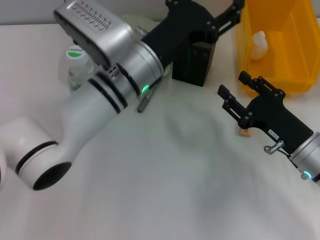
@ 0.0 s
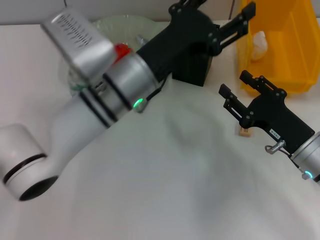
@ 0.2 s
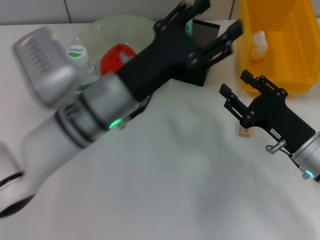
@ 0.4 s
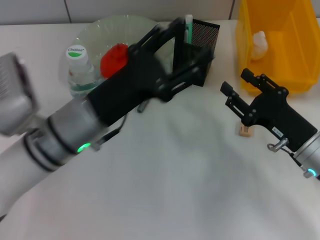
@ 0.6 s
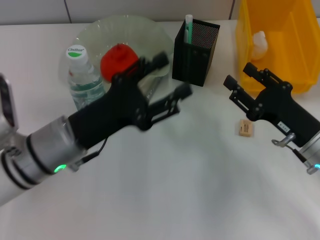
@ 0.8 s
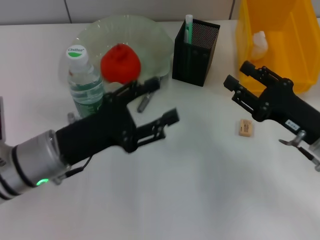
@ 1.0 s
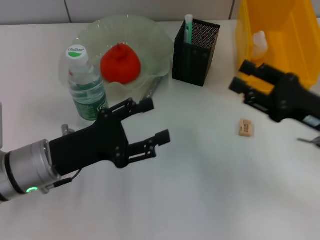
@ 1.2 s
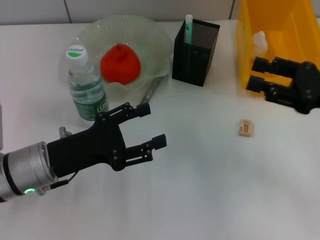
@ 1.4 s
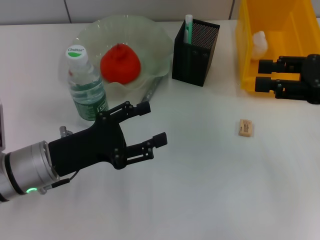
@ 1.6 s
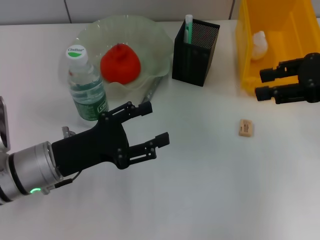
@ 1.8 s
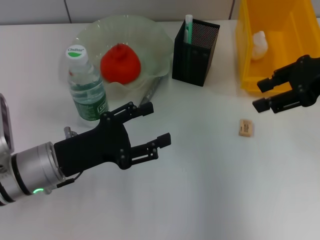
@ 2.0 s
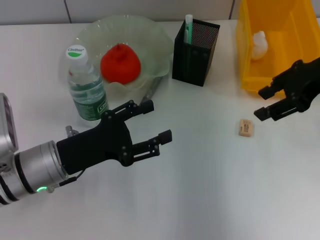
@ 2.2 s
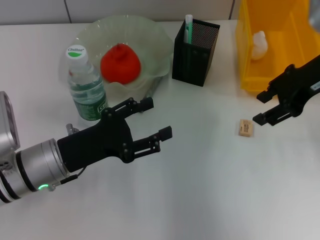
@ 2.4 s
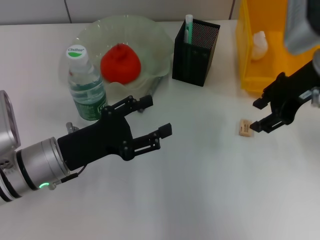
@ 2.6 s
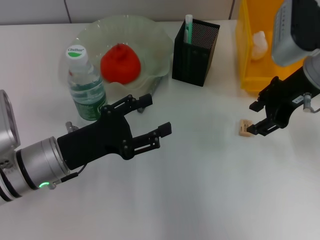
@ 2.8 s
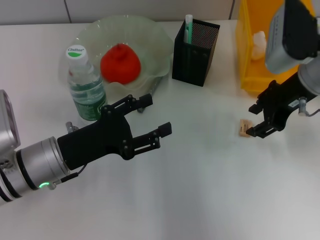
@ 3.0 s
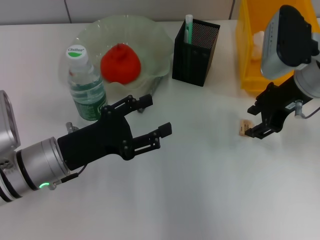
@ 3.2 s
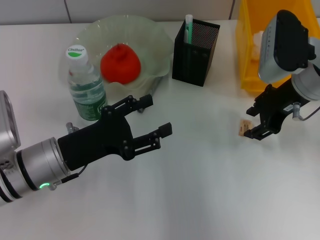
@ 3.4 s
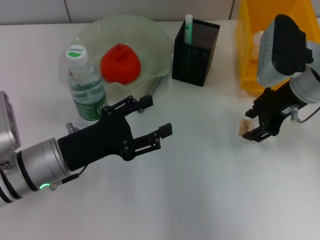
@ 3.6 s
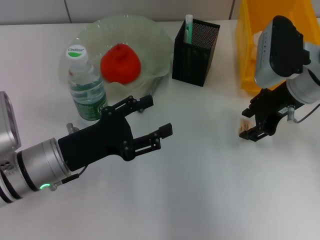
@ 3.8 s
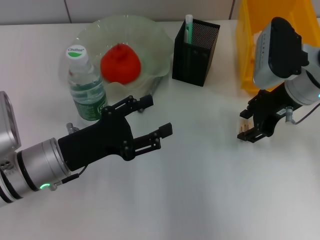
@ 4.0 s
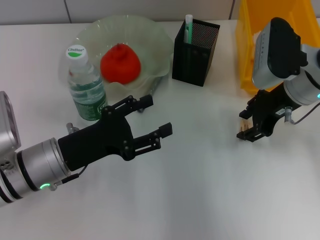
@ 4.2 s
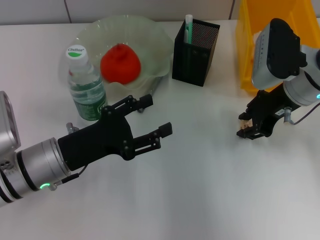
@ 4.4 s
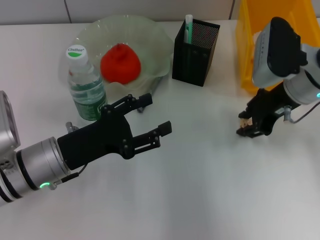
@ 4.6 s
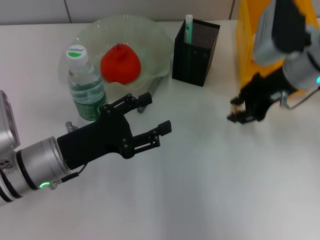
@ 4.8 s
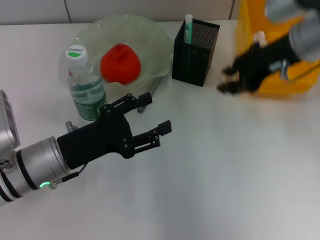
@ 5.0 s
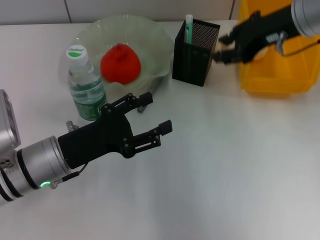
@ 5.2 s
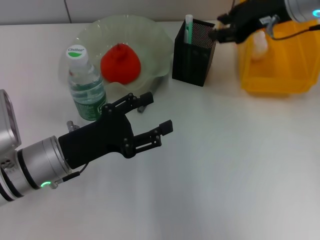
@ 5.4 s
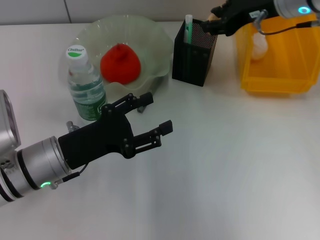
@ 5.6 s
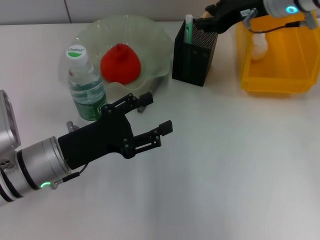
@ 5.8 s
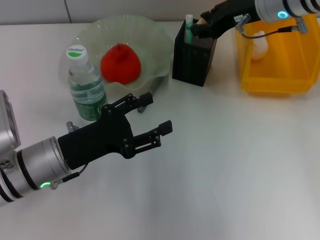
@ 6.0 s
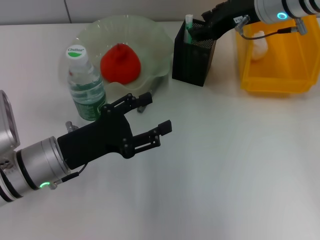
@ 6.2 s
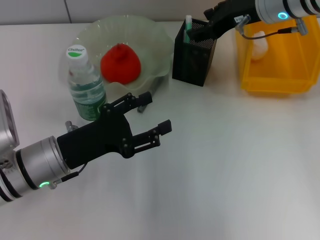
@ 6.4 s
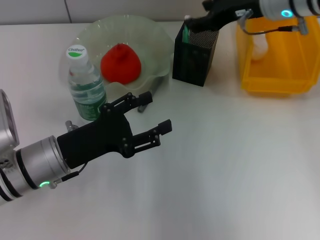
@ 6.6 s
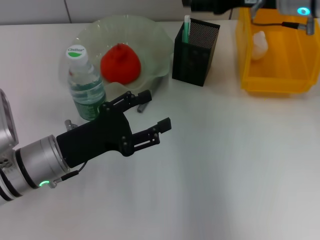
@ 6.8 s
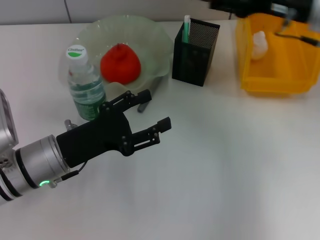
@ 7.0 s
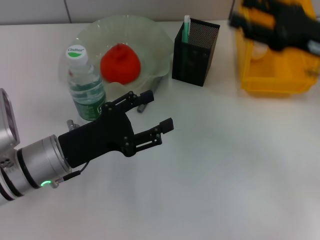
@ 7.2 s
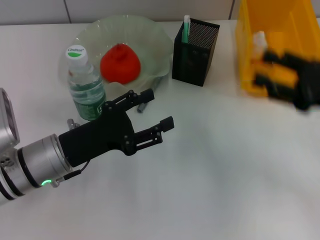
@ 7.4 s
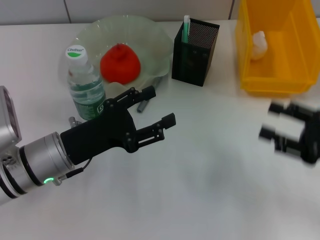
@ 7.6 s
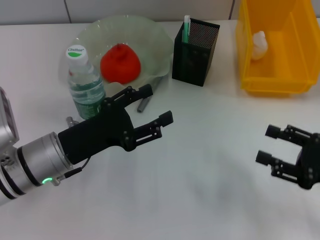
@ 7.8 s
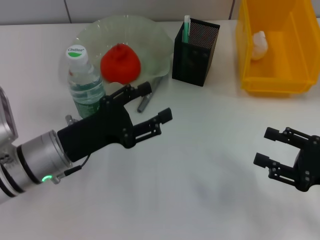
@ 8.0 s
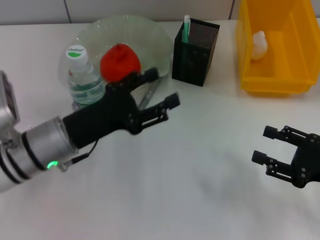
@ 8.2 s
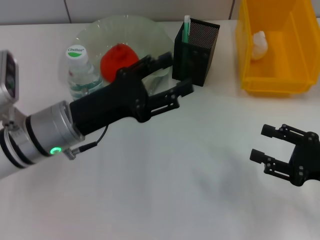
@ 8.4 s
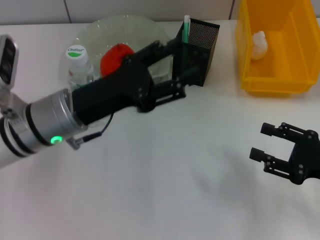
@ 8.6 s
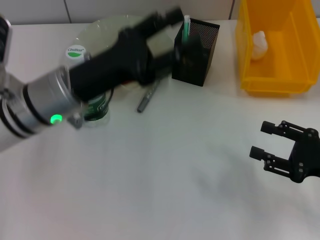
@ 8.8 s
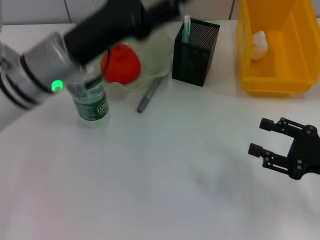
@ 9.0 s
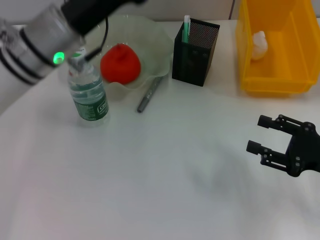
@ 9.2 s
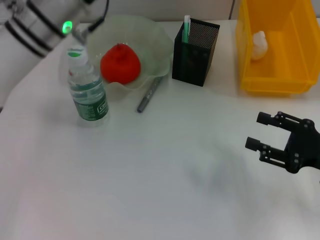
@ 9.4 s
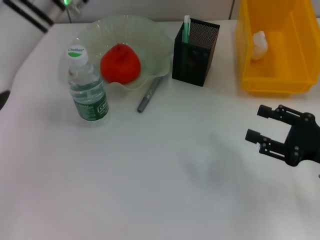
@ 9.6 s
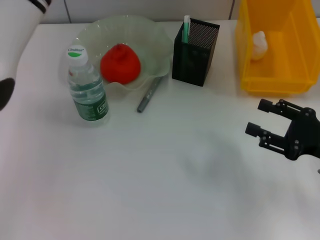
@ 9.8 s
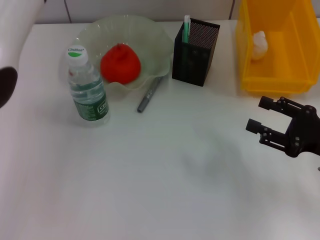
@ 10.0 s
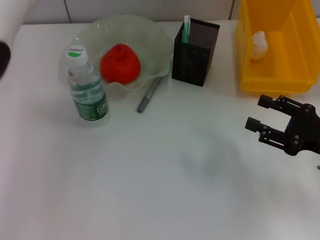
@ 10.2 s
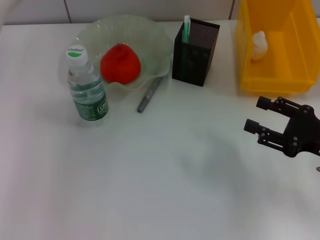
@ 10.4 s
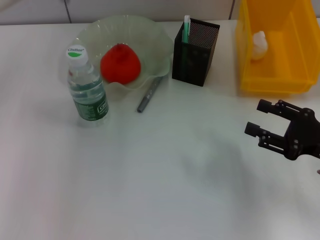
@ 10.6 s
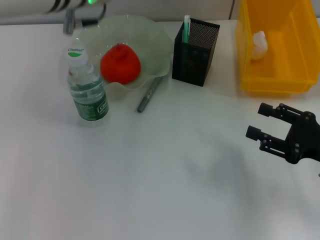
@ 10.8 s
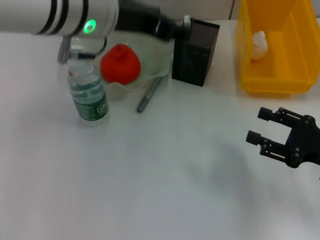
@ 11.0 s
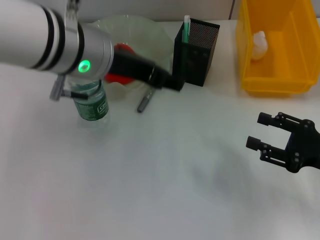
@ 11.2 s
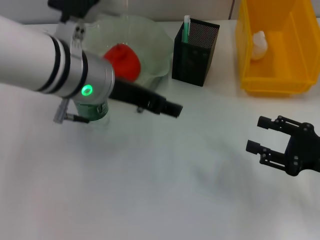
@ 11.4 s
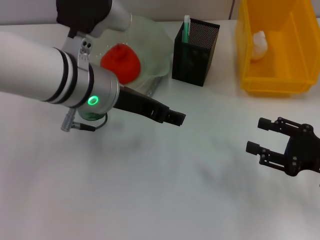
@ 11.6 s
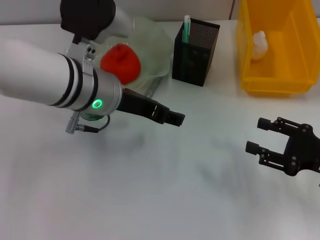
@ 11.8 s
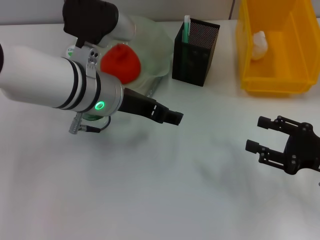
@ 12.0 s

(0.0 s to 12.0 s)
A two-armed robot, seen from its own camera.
Step, 0.0 s - 4.2 s: Grab the eraser with the right hand.
Step, 4.4 s - 6.2 s: Put the eraser into the pen holder with the right hand.
0.0 s - 1.6 s: The left gripper is displaced to the left, backward and downward by some 20 cm. The right gripper shifts roughly 15 cm upward and to the right.
1.6 s - 3.0 s: The right gripper shifts about 10 cm to the left and forward.
3.0 s - 4.4 s: The grippers make only small movements.
4.4 s - 6.0 s: The right gripper is displaced upward and forward by roughly 10 cm.
6.0 s - 7.6 s: The right gripper heads backward, to the right and downward, covering about 30 cm, and opens up.
7.6 s - 9.0 s: The left gripper heads upward and forward, covering about 10 cm.
9.0 s - 10.4 s: The left gripper moves upward and forward, about 15 cm.
10.4 s - 12.0 s: The left gripper shifts roughly 15 cm downward and backward.

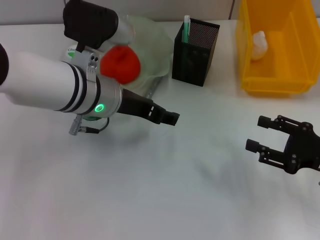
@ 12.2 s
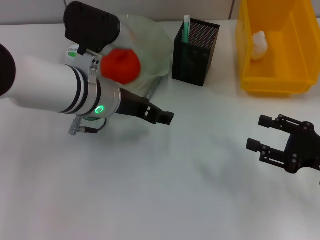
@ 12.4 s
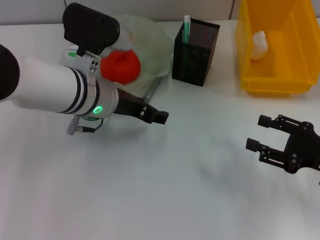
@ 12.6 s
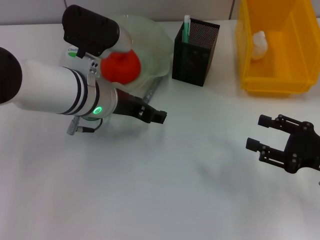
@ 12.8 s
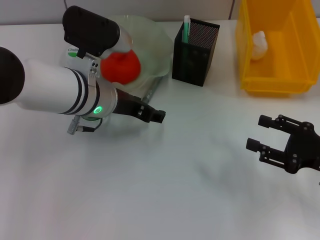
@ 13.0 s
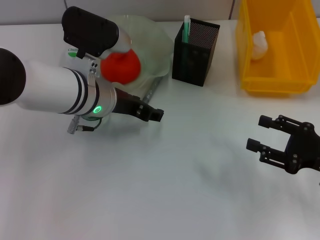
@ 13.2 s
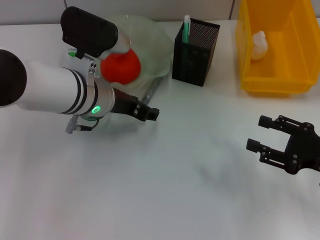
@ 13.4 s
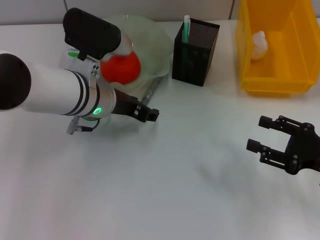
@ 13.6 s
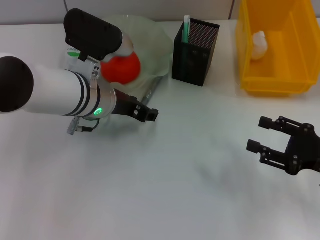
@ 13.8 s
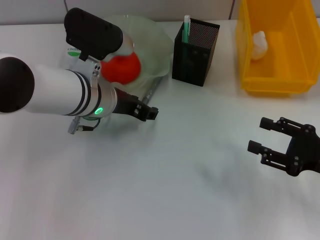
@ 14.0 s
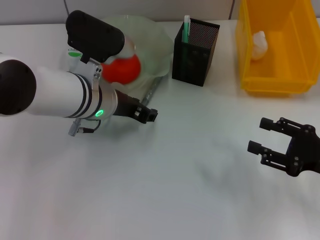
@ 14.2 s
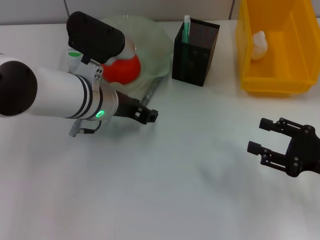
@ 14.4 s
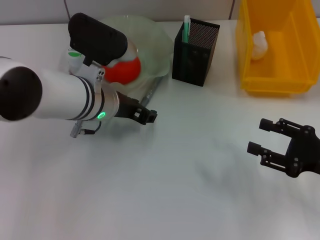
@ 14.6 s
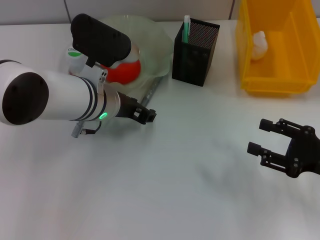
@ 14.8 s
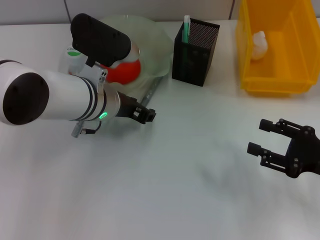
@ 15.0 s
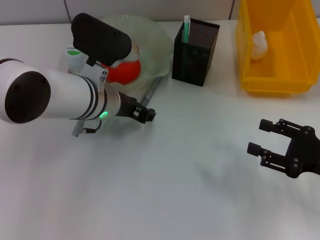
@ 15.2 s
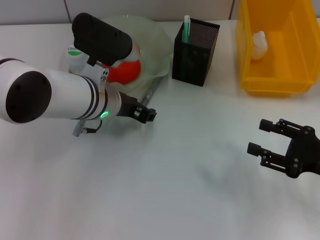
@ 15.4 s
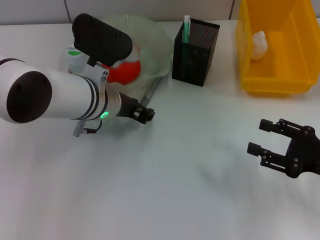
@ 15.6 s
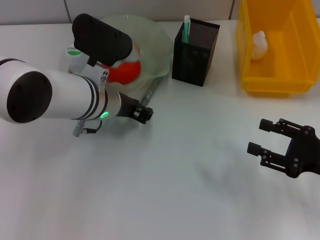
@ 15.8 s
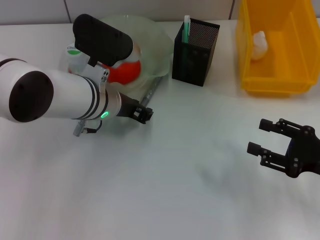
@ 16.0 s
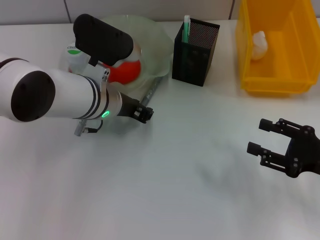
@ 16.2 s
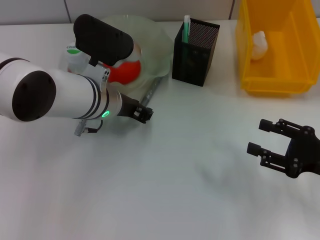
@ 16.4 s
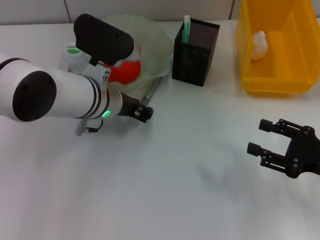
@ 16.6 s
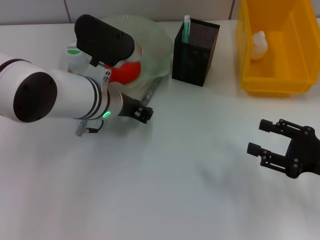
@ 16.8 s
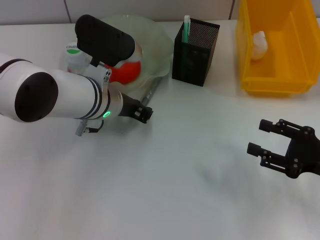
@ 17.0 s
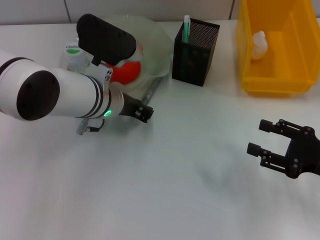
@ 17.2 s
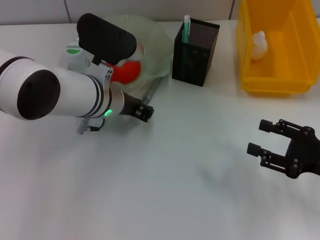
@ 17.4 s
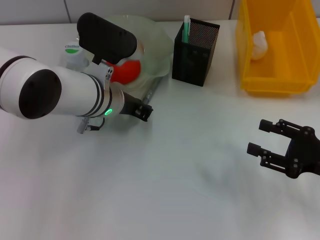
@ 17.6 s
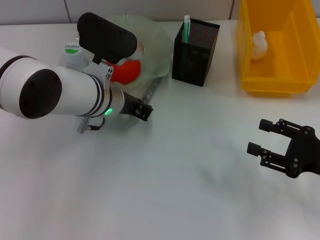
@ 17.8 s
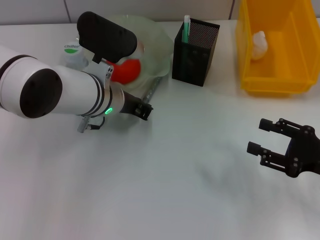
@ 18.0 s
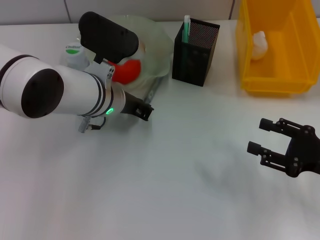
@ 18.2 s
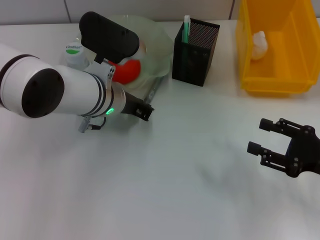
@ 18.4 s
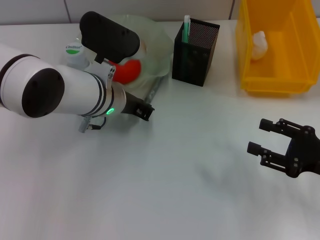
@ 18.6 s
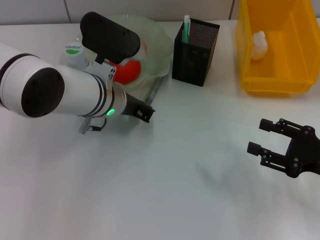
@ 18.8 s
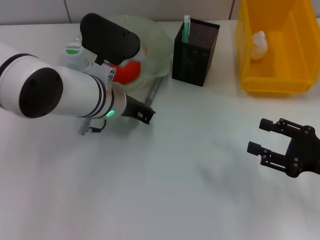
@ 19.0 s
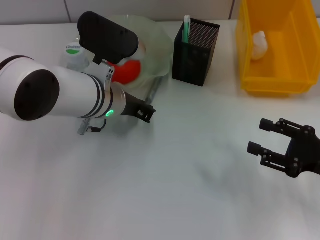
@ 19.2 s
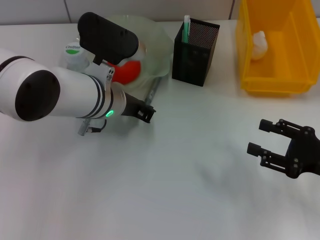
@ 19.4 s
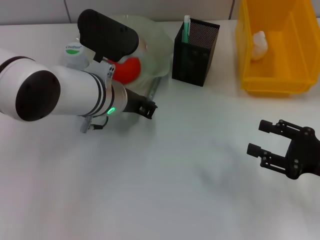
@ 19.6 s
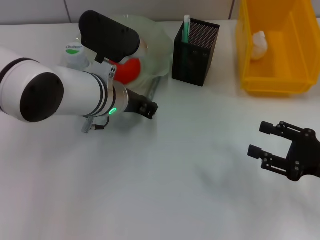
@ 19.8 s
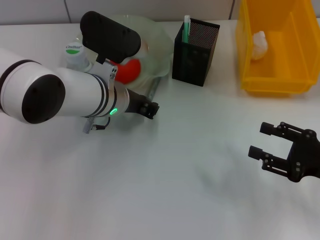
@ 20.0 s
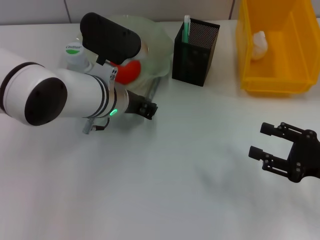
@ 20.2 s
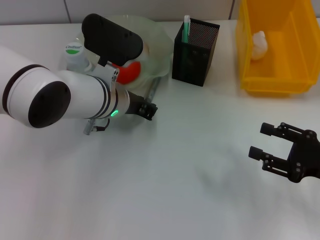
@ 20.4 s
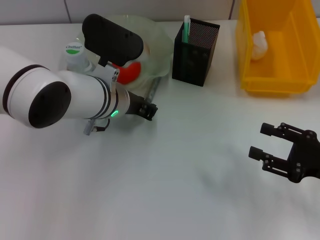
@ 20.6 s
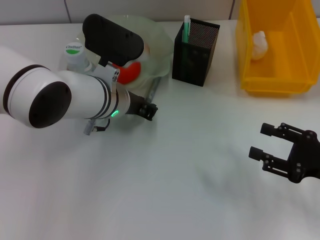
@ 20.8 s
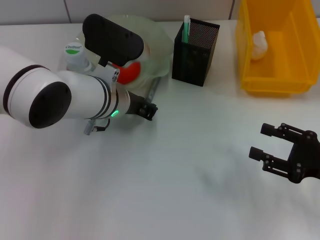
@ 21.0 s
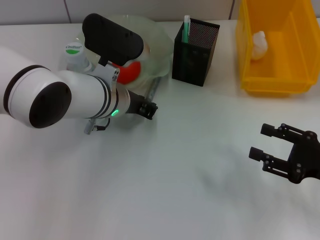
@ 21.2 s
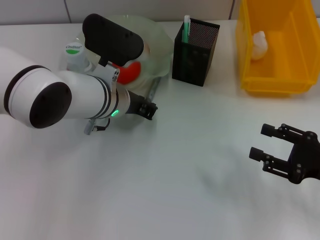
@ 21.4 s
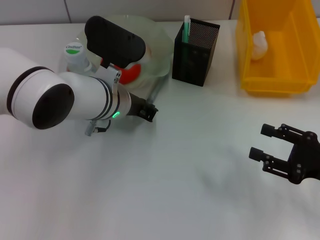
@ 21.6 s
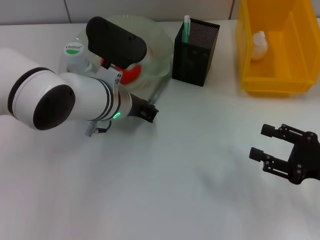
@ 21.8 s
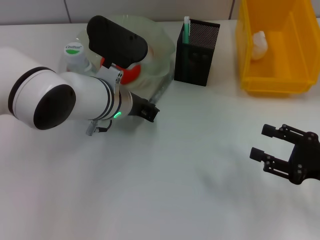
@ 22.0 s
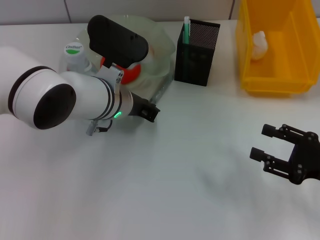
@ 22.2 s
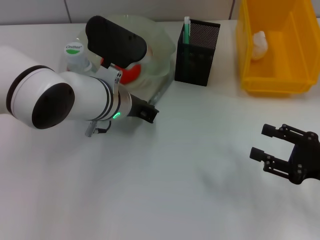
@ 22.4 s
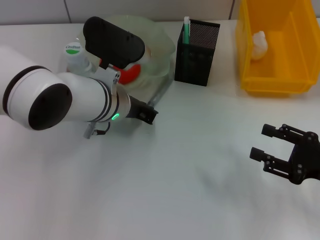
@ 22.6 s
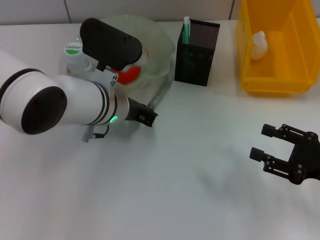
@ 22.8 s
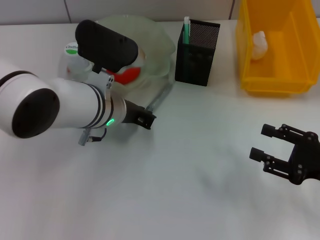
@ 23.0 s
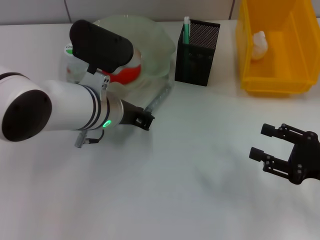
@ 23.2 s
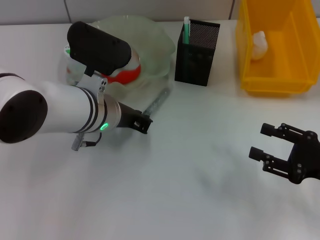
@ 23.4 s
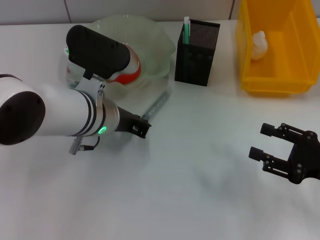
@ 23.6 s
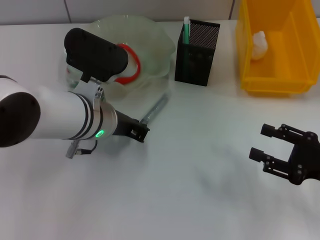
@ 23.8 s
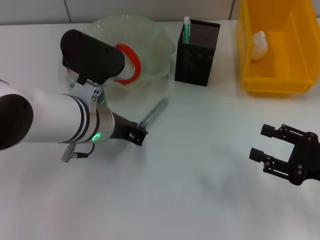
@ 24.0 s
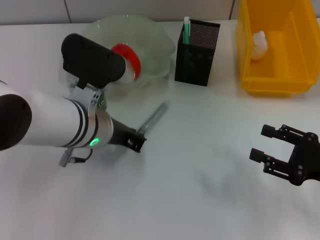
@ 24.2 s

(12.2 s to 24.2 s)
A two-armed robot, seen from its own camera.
12.2 s - 13.8 s: The grippers move only a little.
13.8 s - 15.2 s: Both grippers stay about where they are.
15.2 s - 19.8 s: The two grippers keep their place.
19.8 s - 22.6 s: Both grippers stay about where they are.
22.6 s - 24.2 s: The left gripper ends up approximately 5 cm from where it was.
